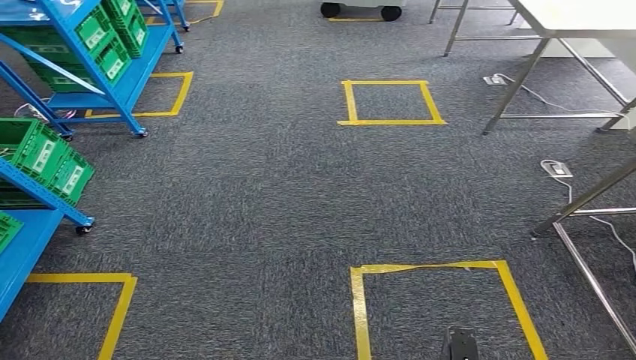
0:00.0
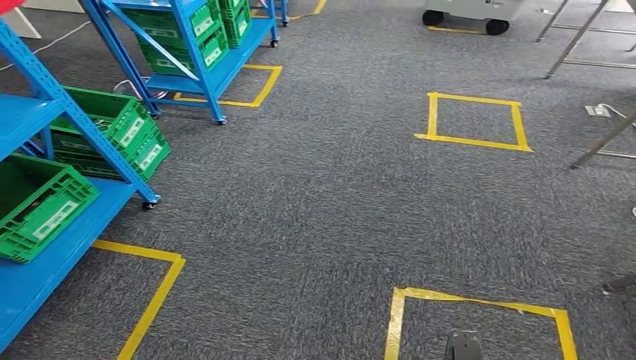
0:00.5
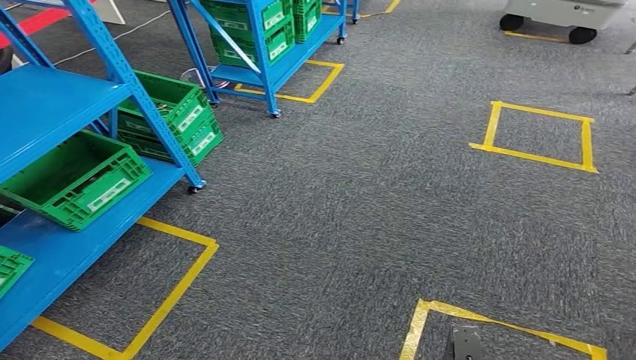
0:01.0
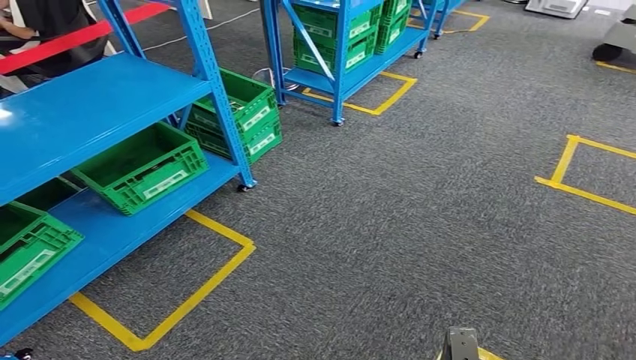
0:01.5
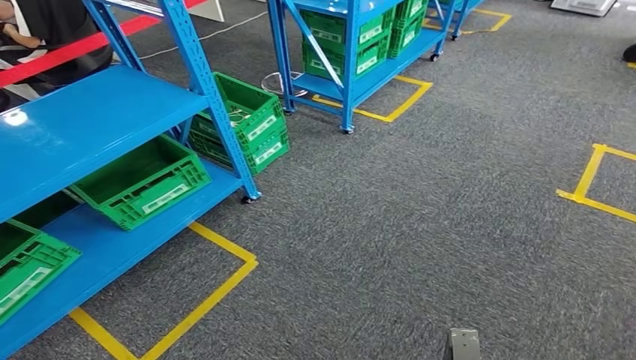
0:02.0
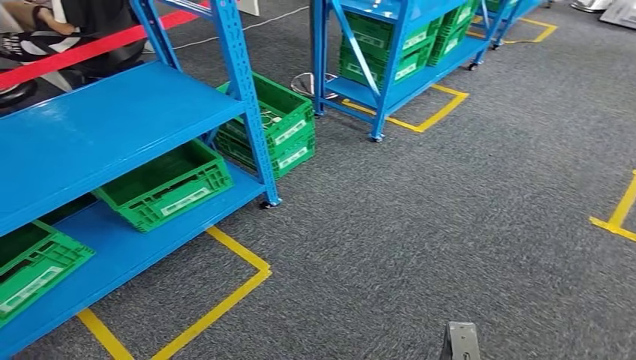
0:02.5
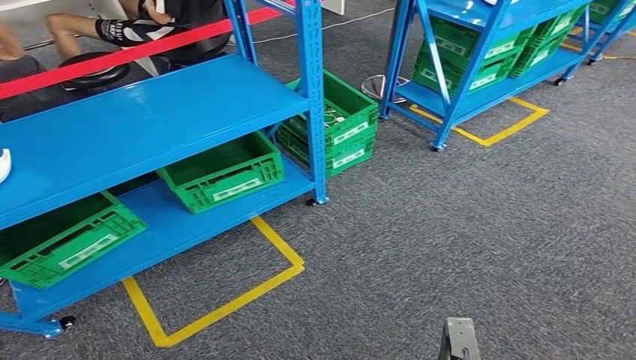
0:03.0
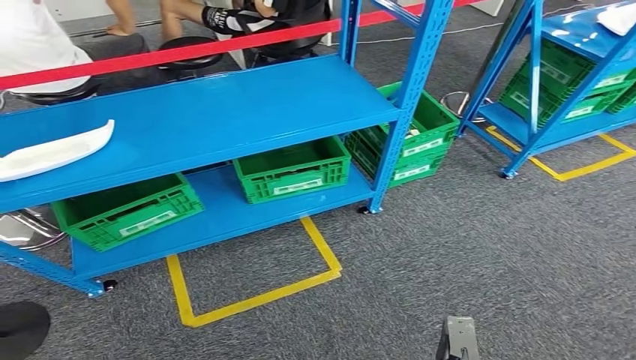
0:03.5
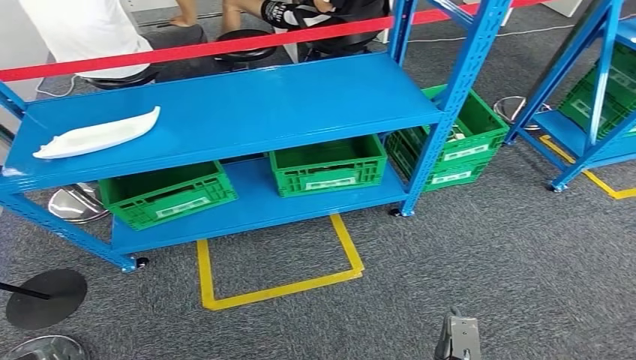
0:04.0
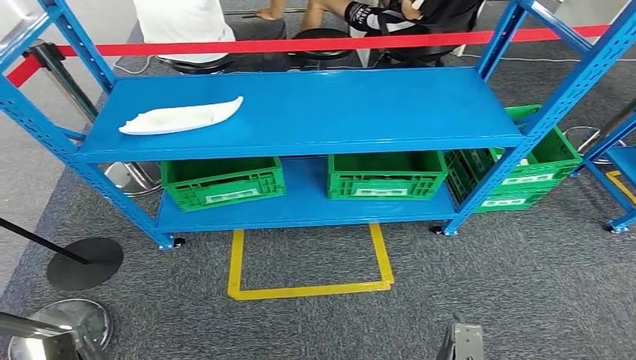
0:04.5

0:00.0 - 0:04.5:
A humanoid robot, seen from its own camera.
Step, 0:00.0 - 0:04.5: Move to the initial position of the workbench.
